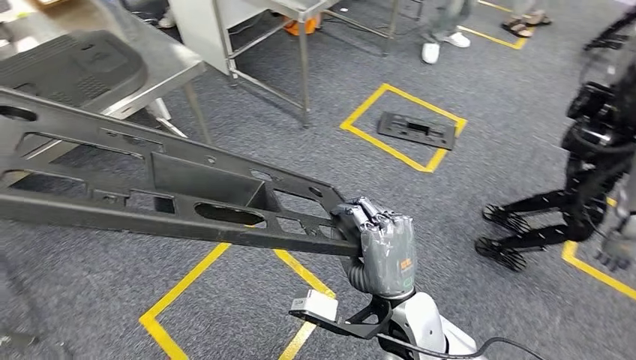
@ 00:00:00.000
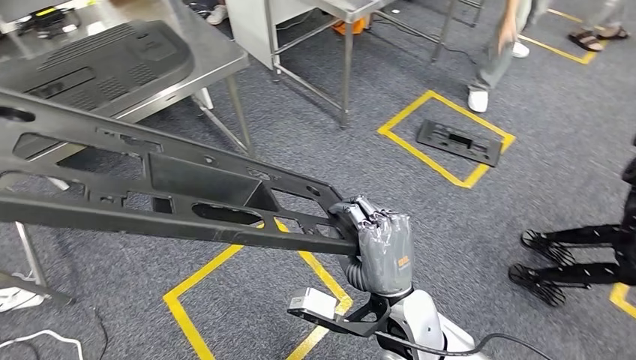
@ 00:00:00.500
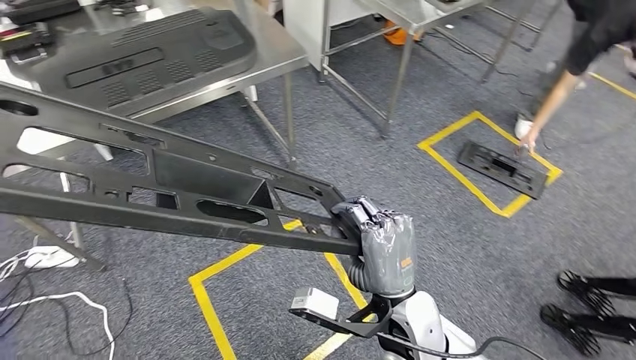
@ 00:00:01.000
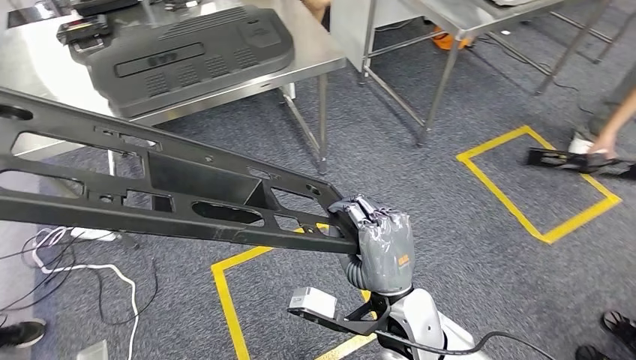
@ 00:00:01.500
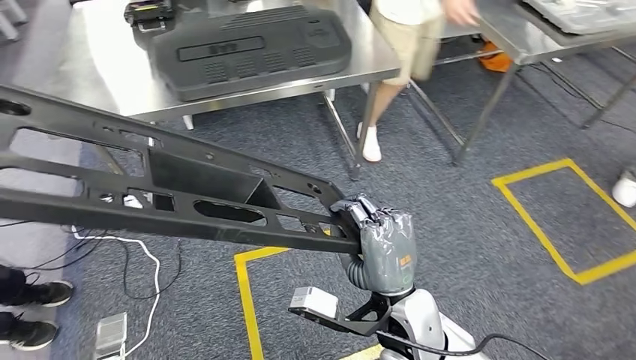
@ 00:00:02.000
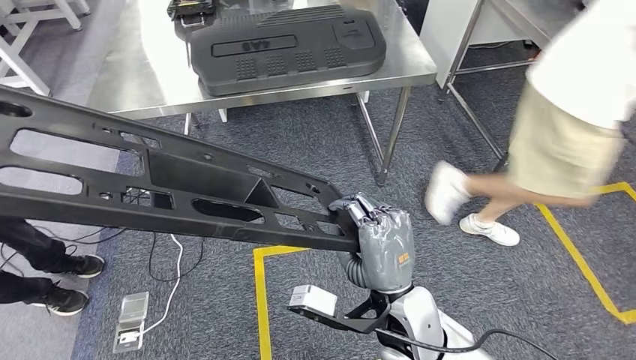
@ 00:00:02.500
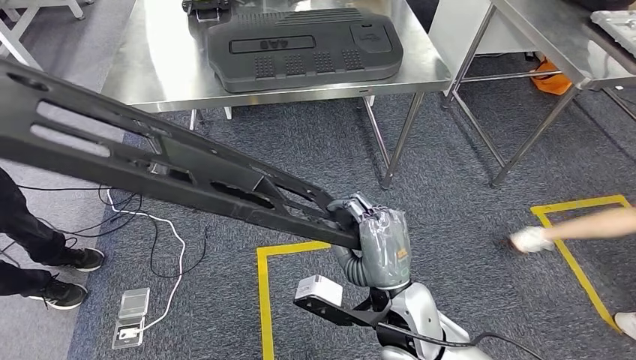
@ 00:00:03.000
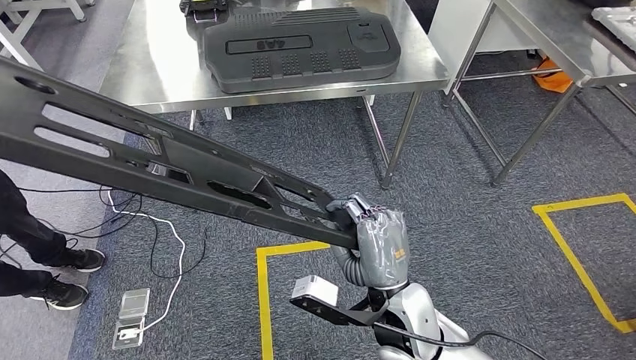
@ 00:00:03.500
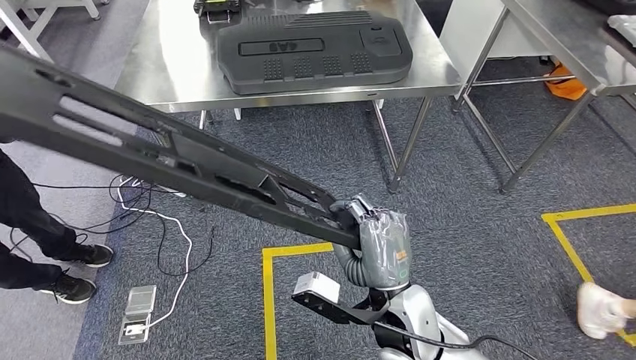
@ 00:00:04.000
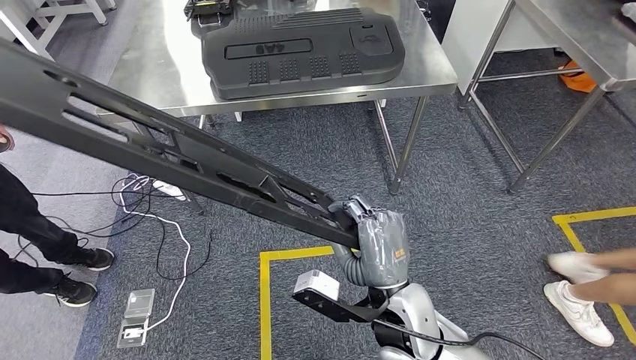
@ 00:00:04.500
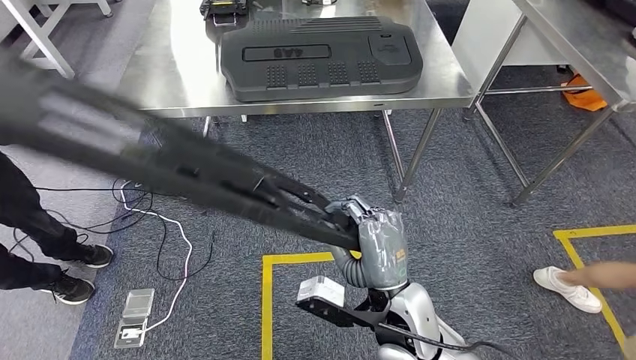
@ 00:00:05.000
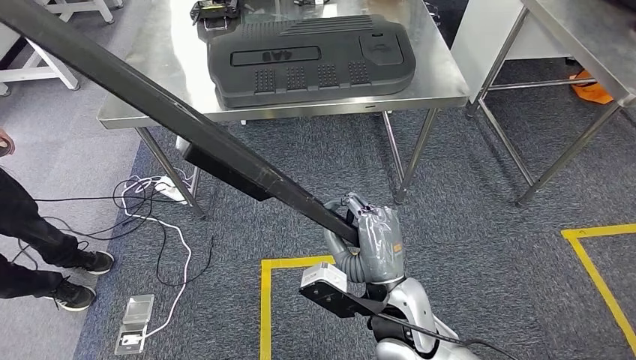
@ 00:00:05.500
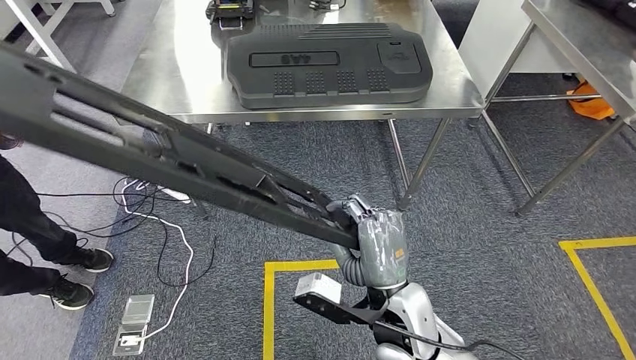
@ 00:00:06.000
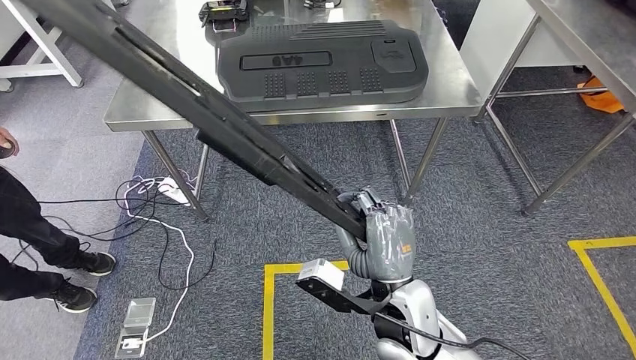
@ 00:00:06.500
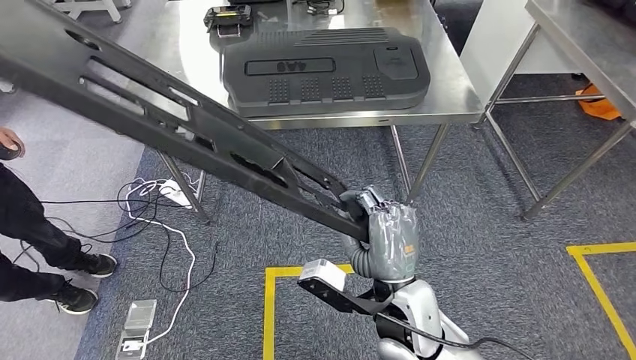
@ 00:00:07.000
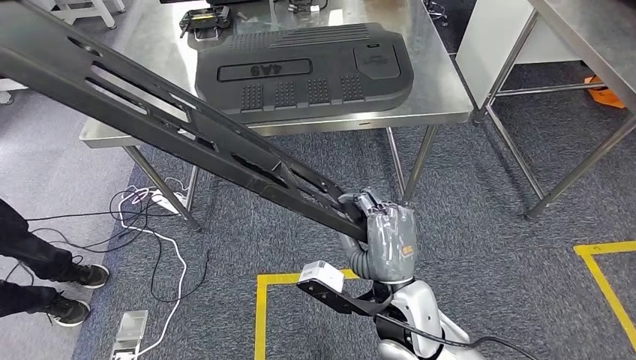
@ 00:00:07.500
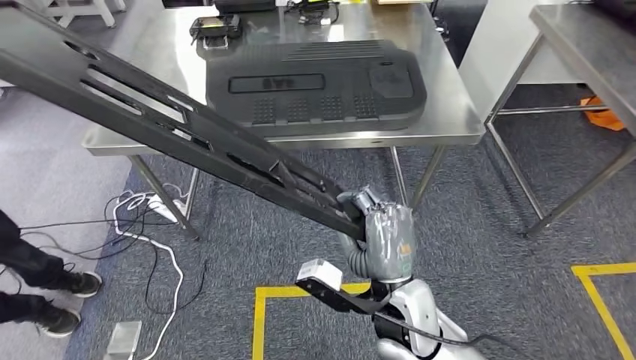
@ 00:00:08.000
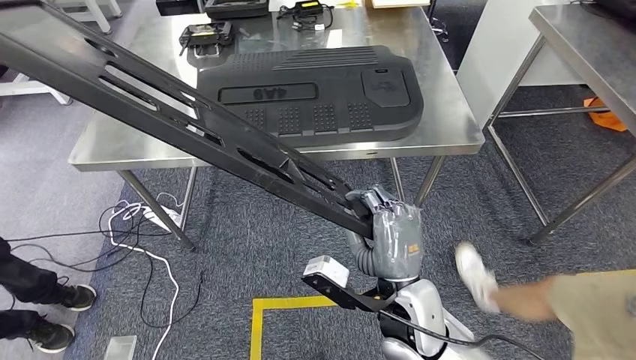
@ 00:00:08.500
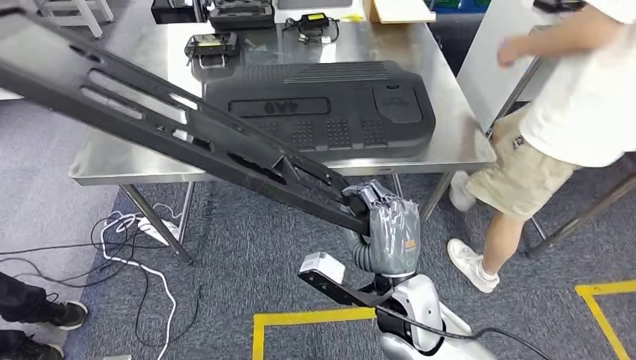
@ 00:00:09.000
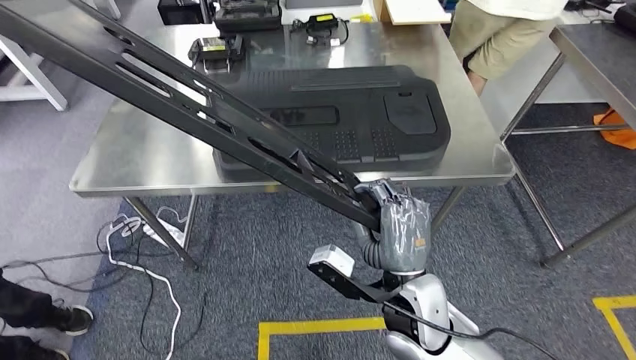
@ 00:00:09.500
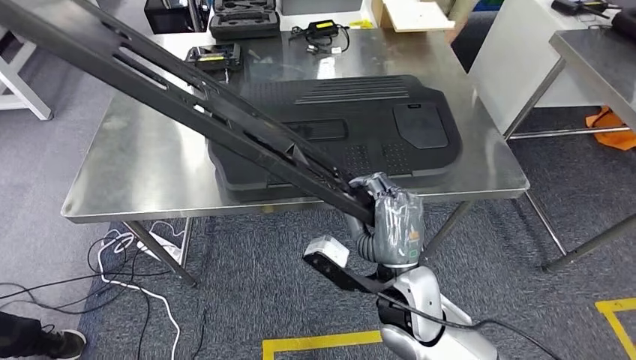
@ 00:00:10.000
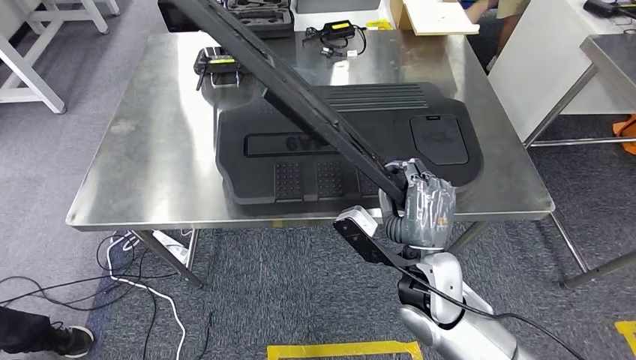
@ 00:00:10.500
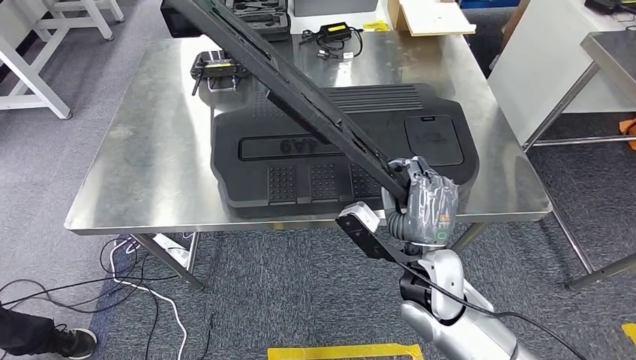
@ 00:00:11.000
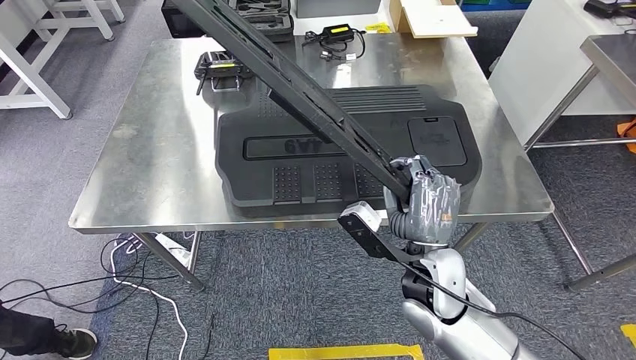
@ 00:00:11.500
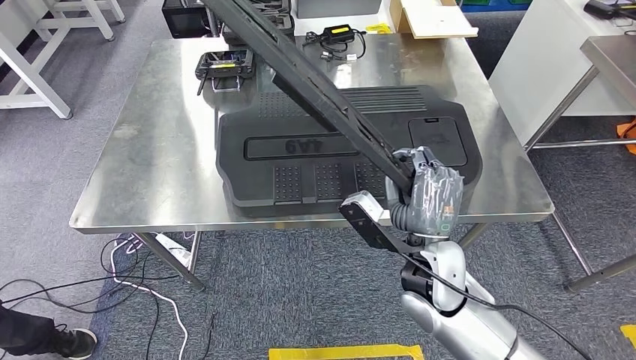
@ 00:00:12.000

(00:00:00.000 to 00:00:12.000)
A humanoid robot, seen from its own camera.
Step, 00:00:00.000 - 00:00:08.500: Move the large material to the workbench.

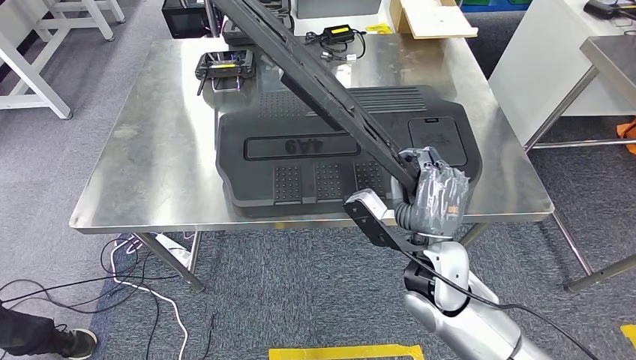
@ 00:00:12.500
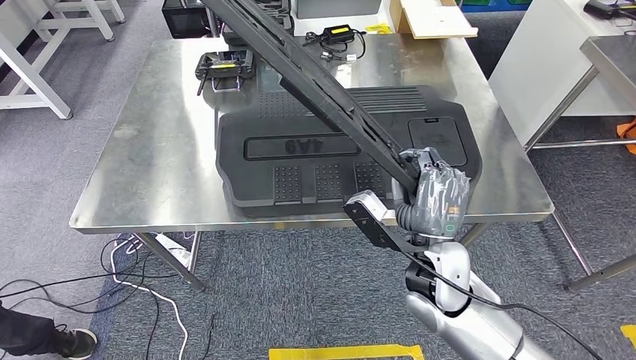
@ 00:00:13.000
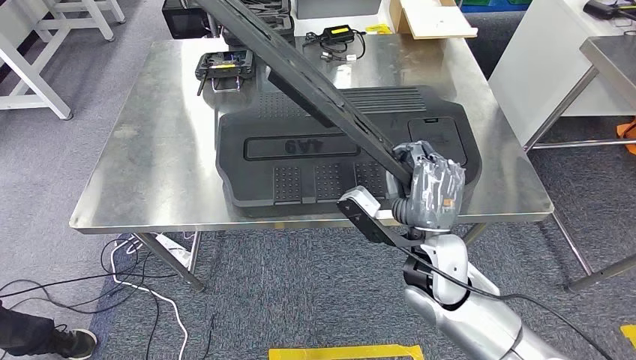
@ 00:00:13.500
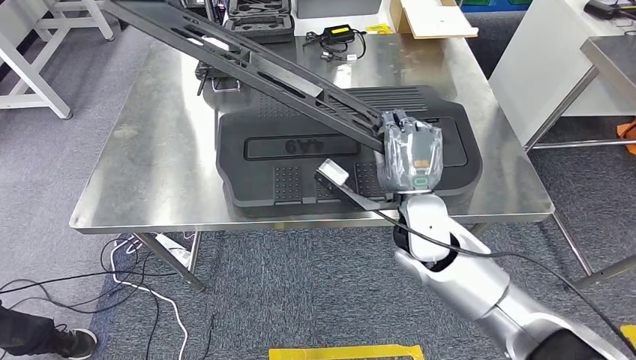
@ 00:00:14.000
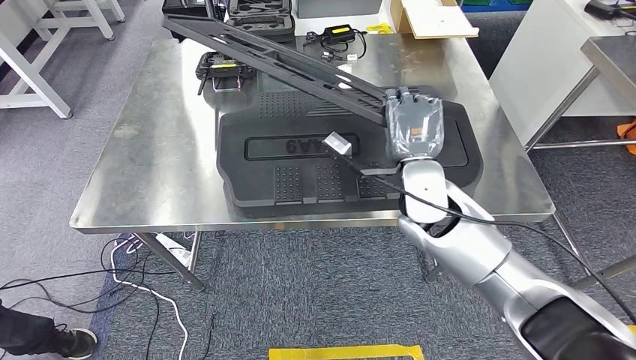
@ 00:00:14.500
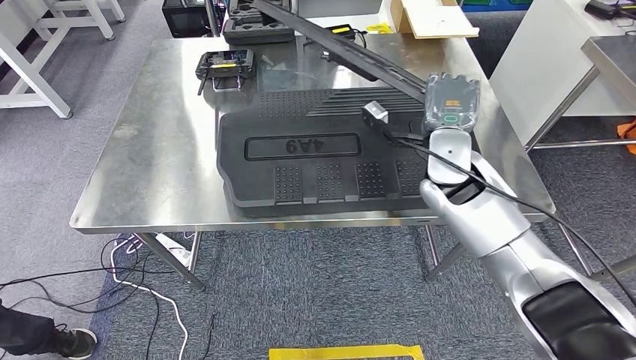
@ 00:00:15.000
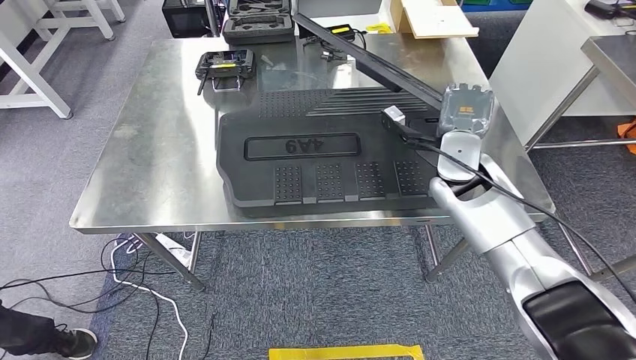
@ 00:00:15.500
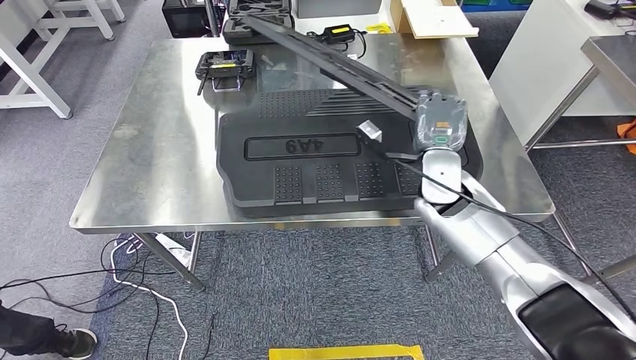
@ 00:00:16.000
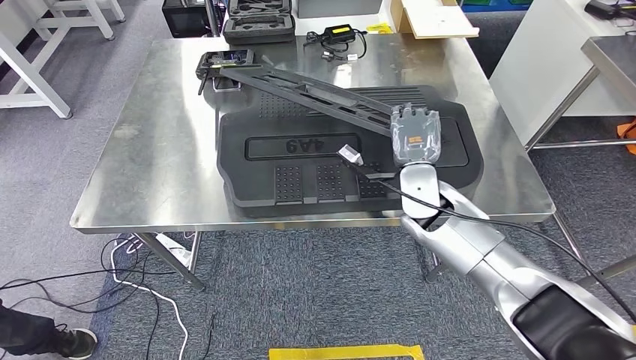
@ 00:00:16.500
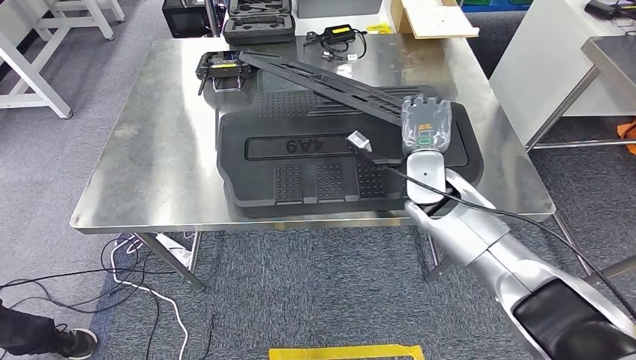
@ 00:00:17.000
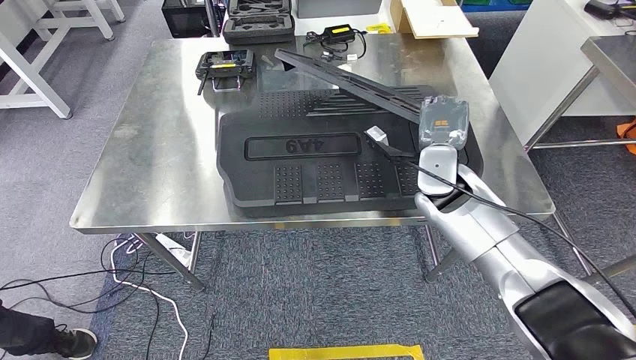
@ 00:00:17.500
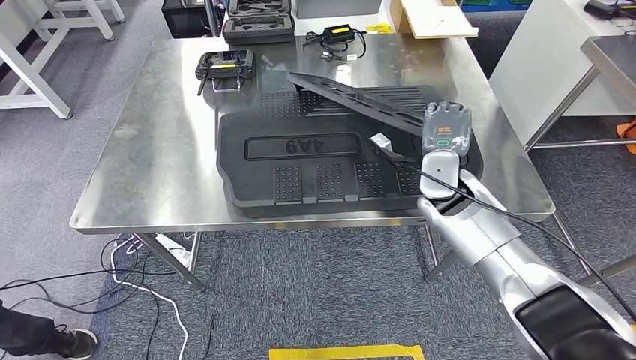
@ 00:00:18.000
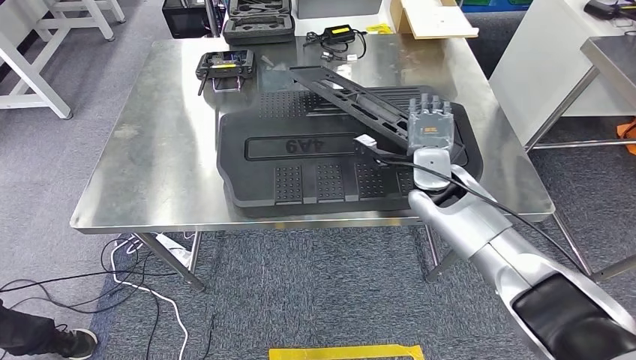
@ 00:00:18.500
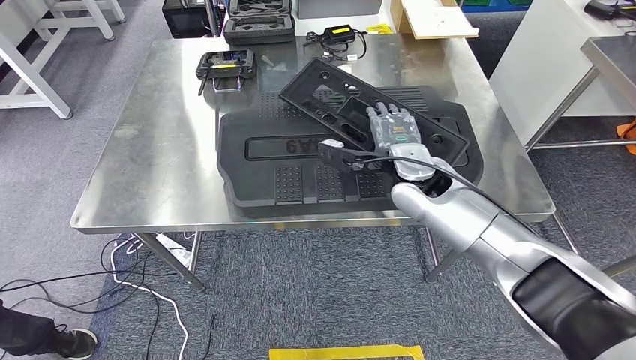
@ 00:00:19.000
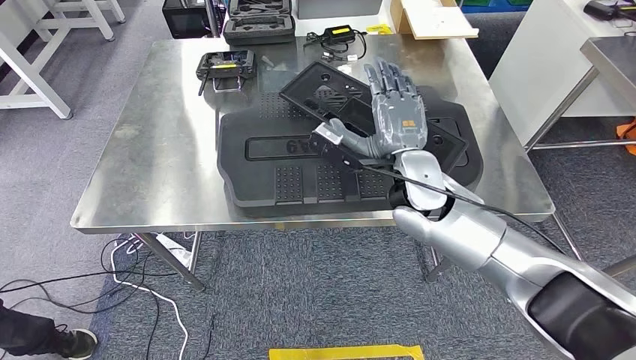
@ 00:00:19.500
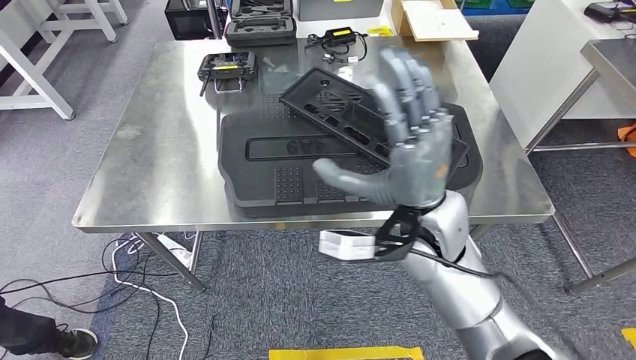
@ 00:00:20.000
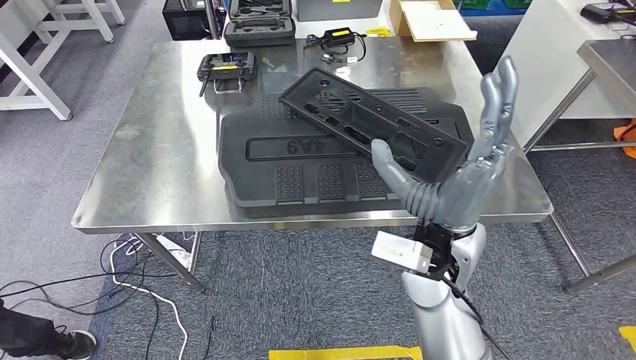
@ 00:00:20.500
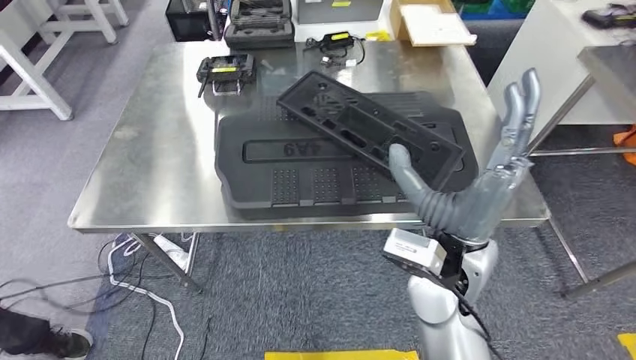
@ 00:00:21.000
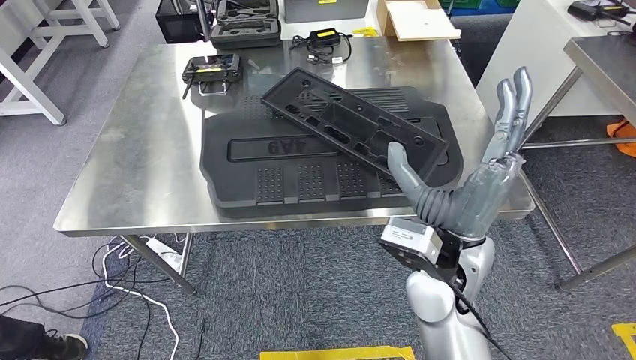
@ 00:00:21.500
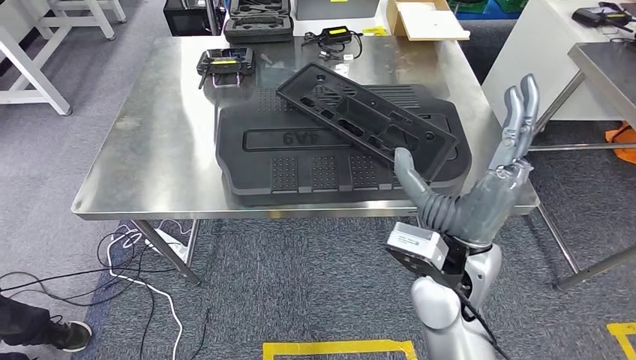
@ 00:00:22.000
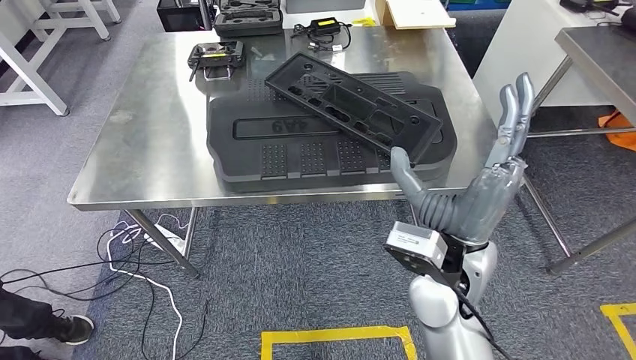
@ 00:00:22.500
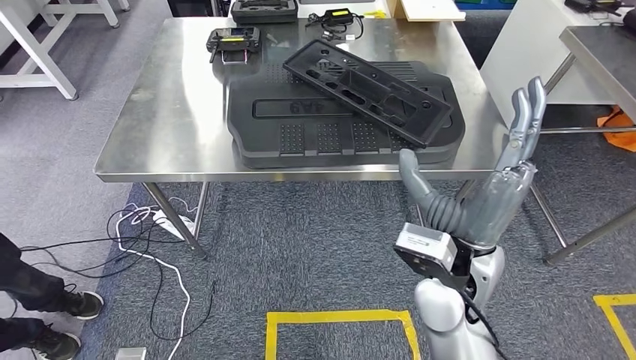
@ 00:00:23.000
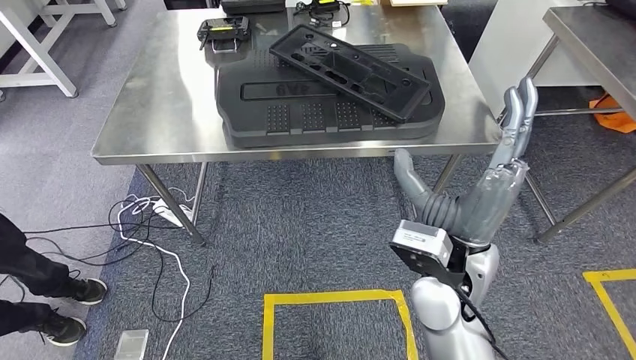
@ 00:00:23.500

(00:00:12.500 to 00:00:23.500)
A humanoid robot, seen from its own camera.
Step, 00:00:12.500 - 00:00:23.500: Insert the large material into the corresponding slot on the workbench.
00:00:12.500 - 00:00:14.500: The right hand is displaced forward and upward by roughly 10 cm.
00:00:14.500 - 00:00:16.000: The right hand travels to the right by about 5 cm.
00:00:16.000 - 00:00:18.000: The hands make only small movements.
